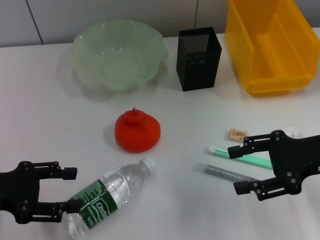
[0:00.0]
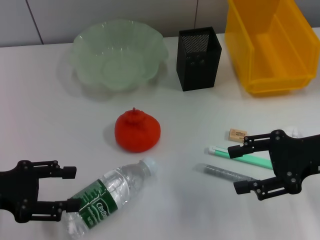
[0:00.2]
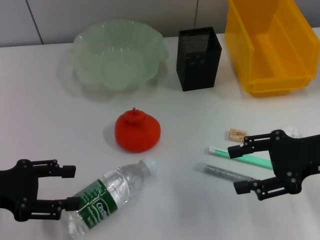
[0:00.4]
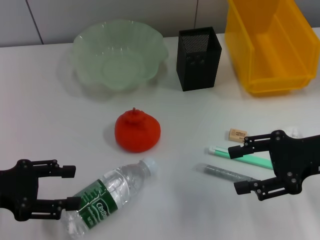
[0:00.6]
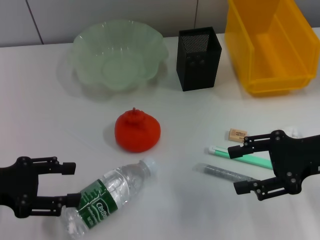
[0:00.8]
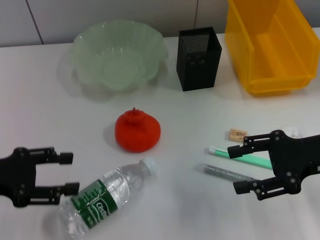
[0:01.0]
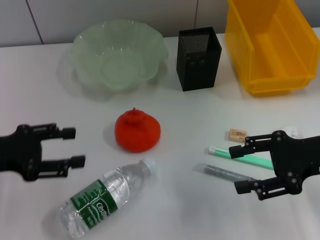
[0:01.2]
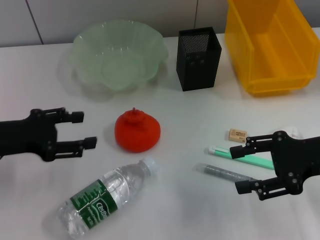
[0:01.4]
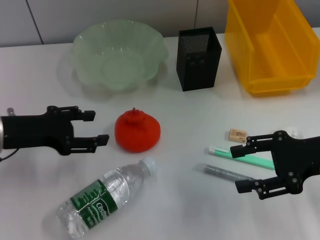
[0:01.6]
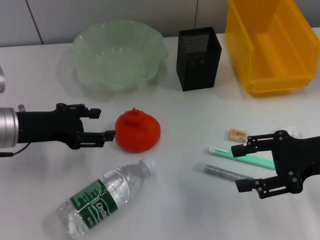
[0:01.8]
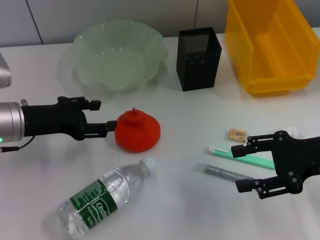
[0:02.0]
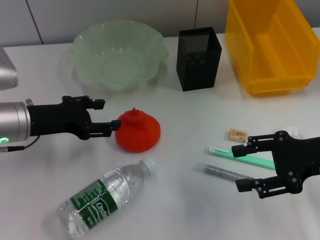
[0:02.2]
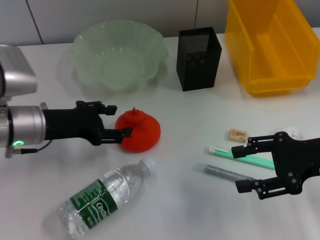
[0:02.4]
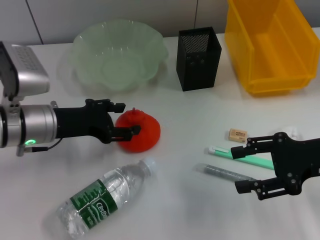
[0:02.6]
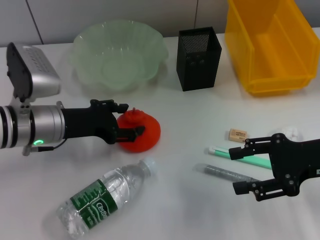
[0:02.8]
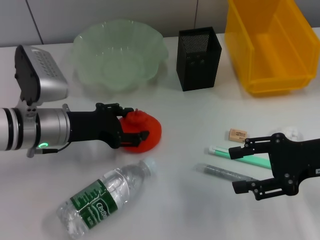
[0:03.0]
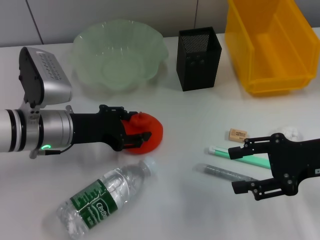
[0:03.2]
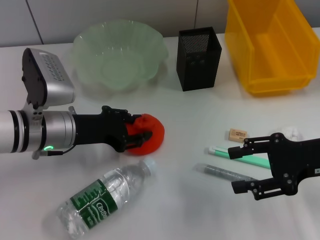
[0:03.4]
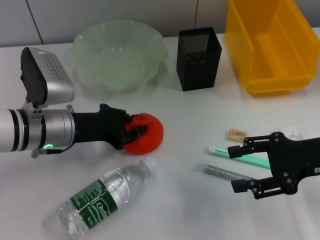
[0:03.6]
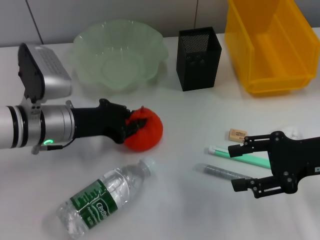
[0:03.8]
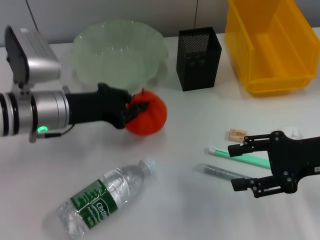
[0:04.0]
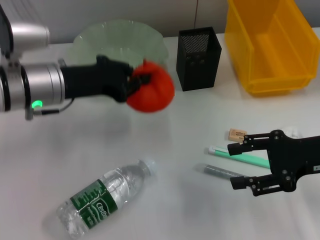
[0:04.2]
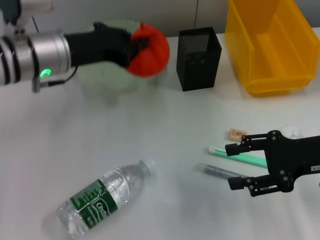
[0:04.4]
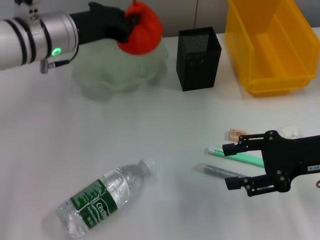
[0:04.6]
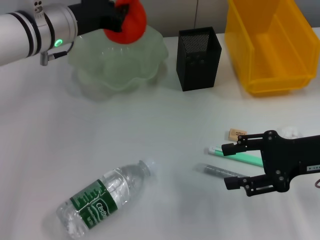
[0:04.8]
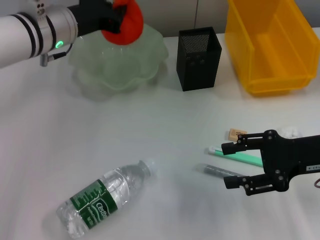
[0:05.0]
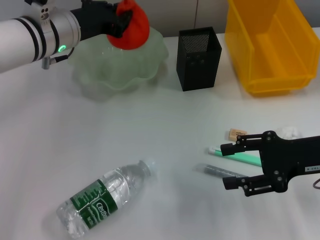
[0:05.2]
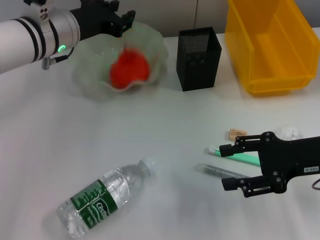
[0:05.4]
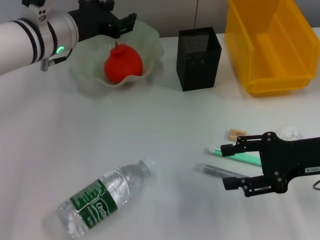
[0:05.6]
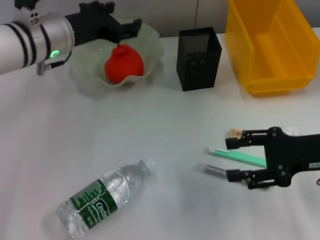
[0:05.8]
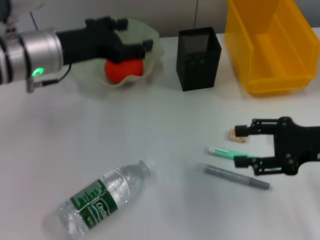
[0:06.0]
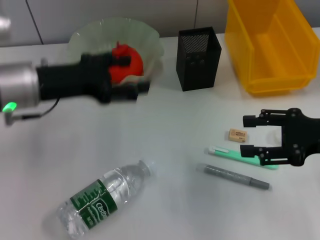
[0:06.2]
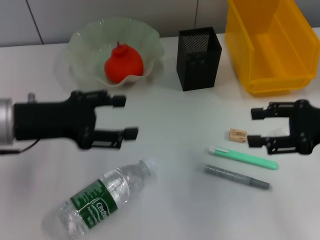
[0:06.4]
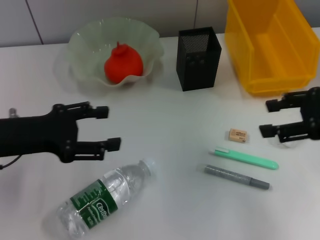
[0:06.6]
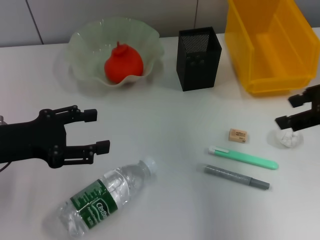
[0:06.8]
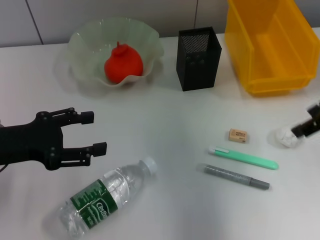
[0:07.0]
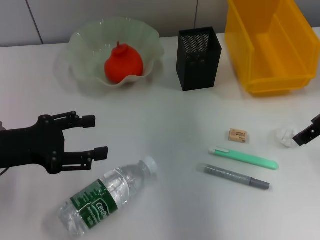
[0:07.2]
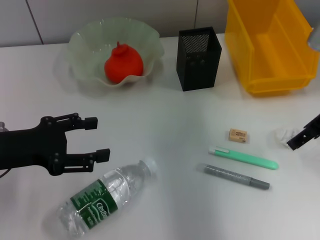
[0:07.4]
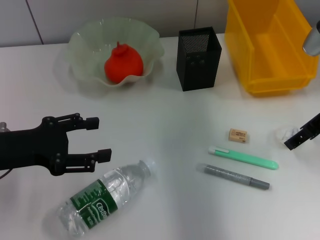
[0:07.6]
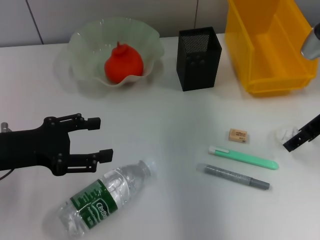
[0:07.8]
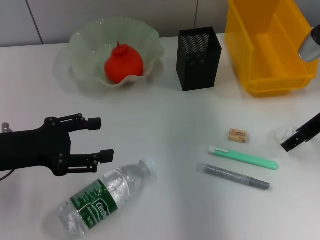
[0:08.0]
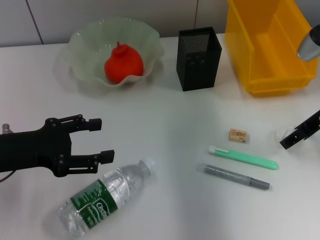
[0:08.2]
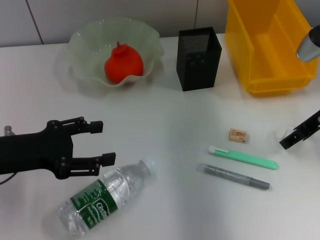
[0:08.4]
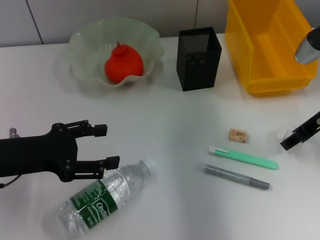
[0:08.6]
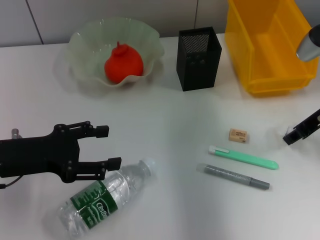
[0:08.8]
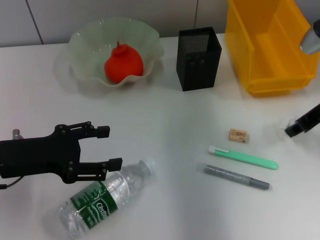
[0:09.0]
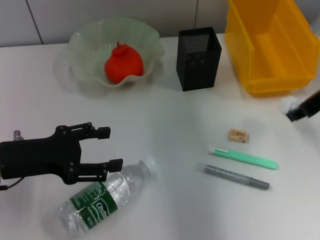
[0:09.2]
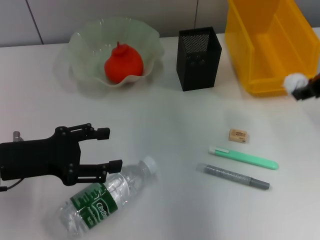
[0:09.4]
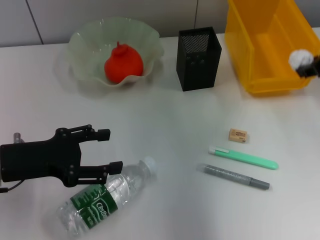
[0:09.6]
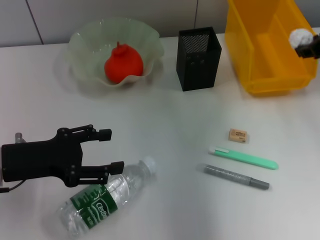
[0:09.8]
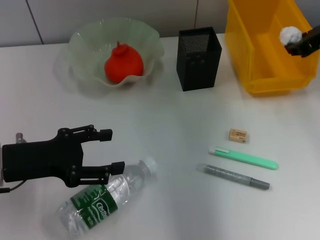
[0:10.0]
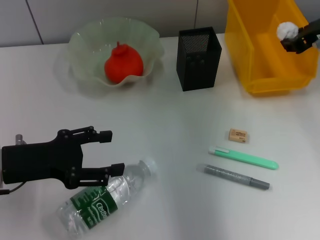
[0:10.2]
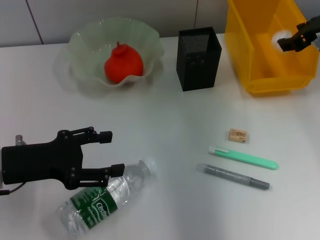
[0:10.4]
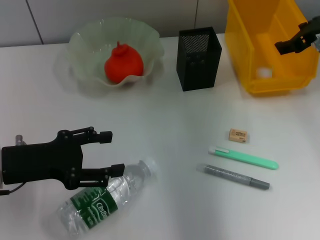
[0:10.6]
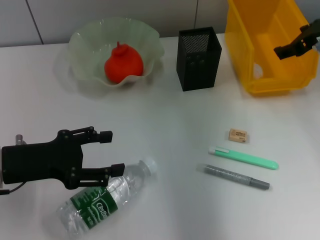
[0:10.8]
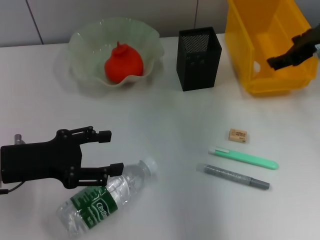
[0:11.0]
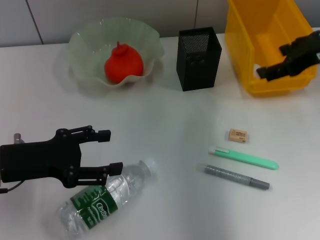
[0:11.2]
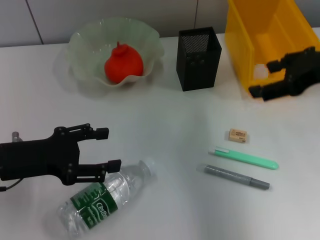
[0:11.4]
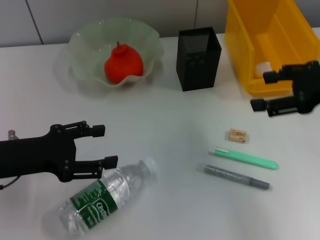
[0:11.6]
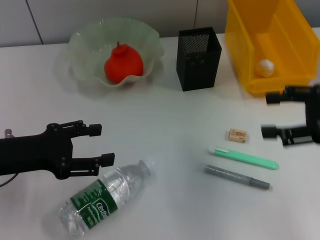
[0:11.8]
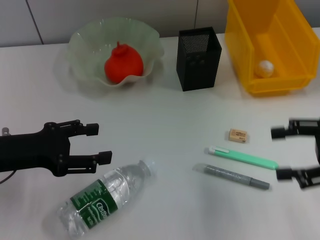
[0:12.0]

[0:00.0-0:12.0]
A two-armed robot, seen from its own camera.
Step, 0.0 to 3.6 s: Grab the orange with the left hand.
Step, 3.8 to 5.4 s: Place the orange into the fruit bowl with the left hand.
Step, 5.6 to 8.6 s: Grab the paper ball with the right hand.
Step, 8.8 to 10.6 s: Place the paper ball into the trash can with the right hand.
0.0 to 1.6 s: The left gripper goes some 5 cm forward.
1.6 to 3.0 s: The left gripper travels to the right by approximately 10 cm.
3.0 to 4.4 s: The left gripper shifts about 10 cm upward, and closes up.
4.4 to 6.0 s: The left gripper opens up.
6.0 to 7.6 s: The left gripper moves backward and to the left, approximately 15 cm, while the right gripper shifts approximately 10 cm forward and upward.
7.6 to 9.0 s: The right gripper closes.
9.0 to 10.4 s: The right gripper travels forward by roughly 5 cm.
10.4 to 12.0 s: The right gripper goes roughly 15 cm backward, and opens.

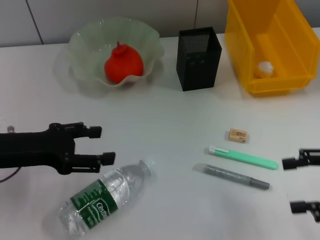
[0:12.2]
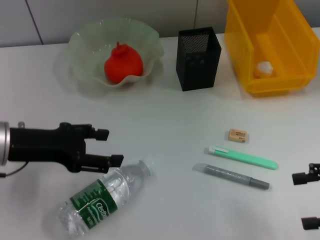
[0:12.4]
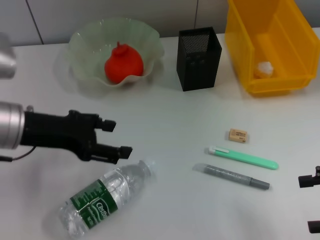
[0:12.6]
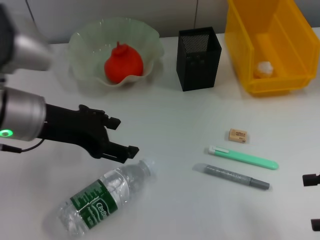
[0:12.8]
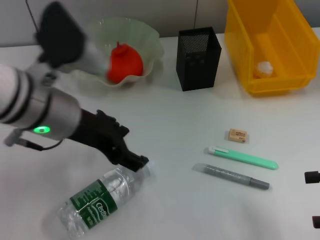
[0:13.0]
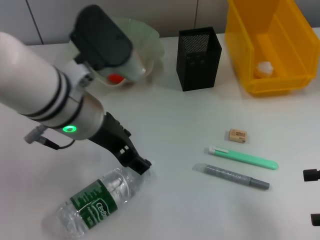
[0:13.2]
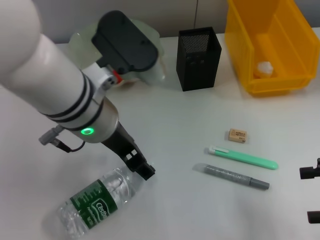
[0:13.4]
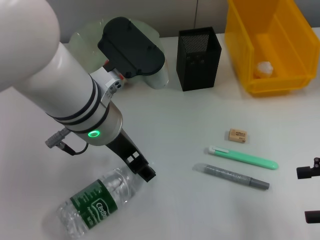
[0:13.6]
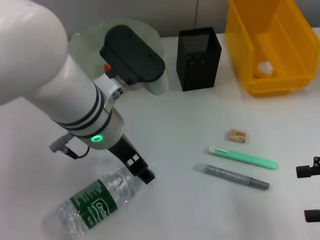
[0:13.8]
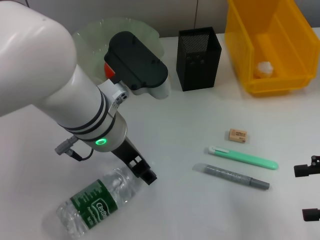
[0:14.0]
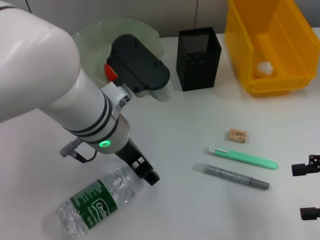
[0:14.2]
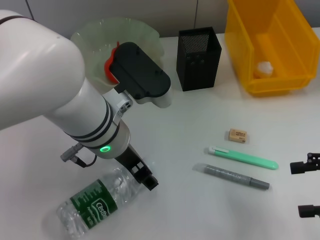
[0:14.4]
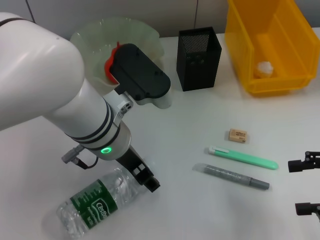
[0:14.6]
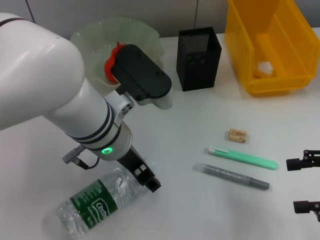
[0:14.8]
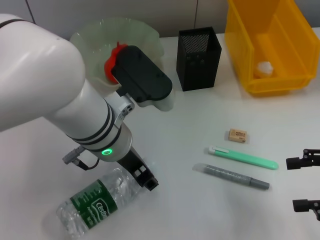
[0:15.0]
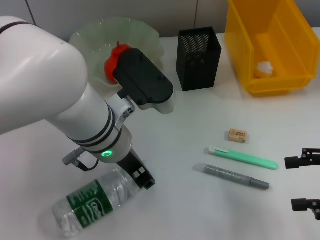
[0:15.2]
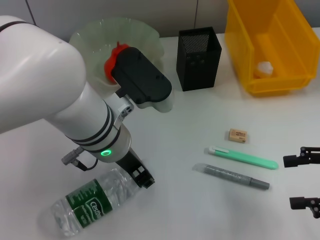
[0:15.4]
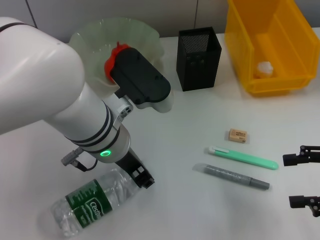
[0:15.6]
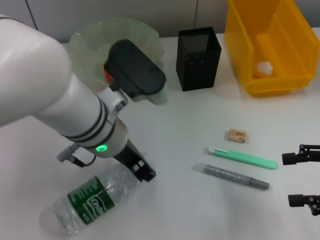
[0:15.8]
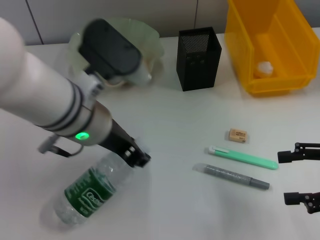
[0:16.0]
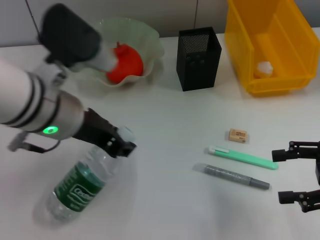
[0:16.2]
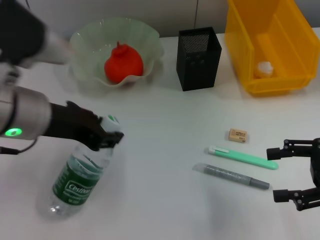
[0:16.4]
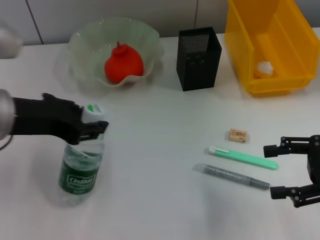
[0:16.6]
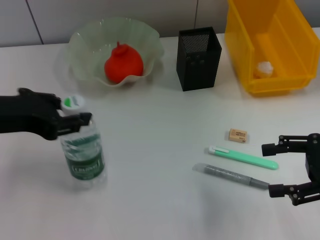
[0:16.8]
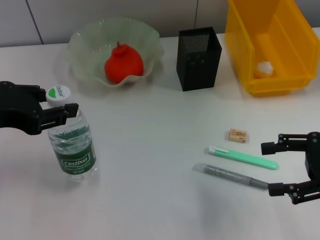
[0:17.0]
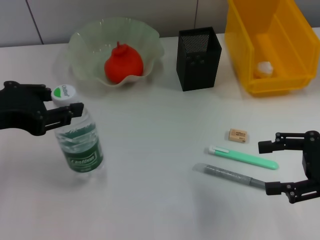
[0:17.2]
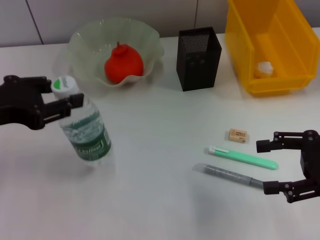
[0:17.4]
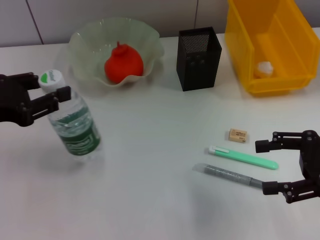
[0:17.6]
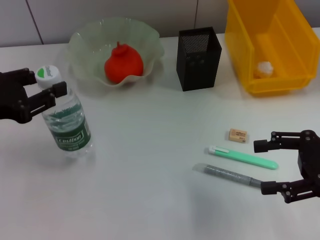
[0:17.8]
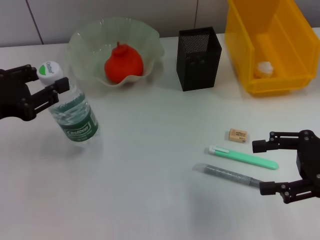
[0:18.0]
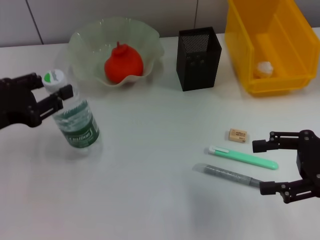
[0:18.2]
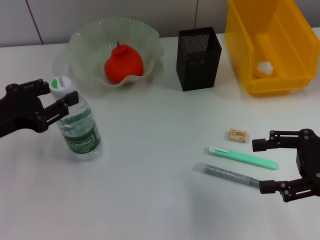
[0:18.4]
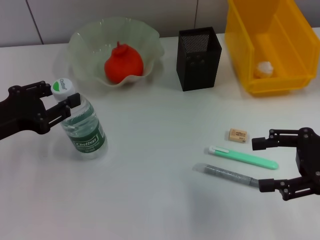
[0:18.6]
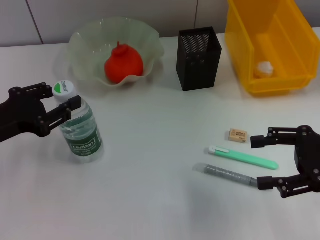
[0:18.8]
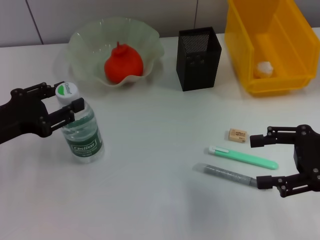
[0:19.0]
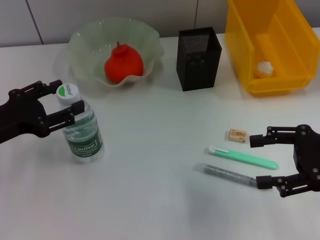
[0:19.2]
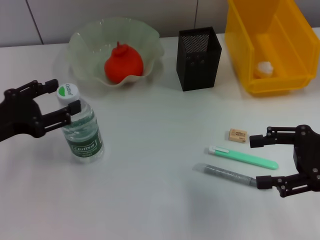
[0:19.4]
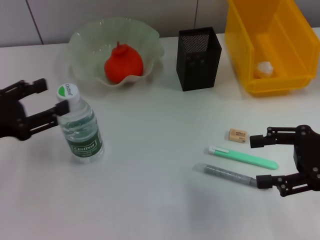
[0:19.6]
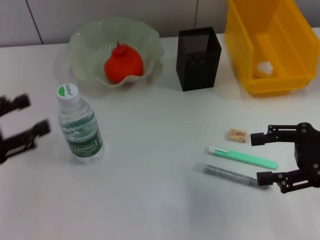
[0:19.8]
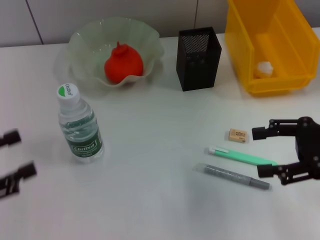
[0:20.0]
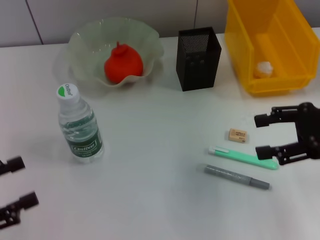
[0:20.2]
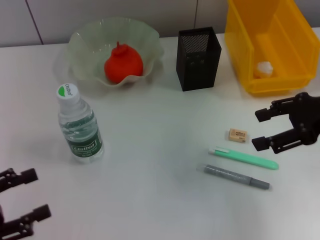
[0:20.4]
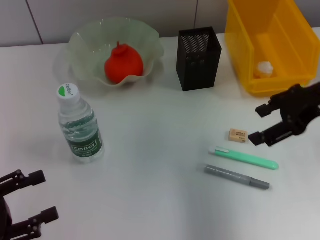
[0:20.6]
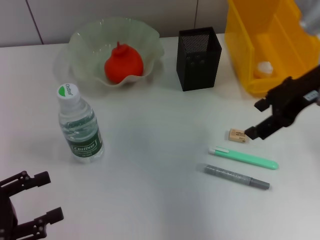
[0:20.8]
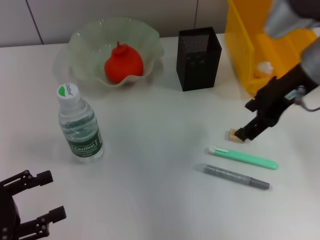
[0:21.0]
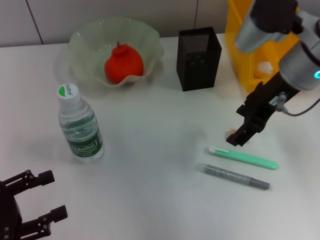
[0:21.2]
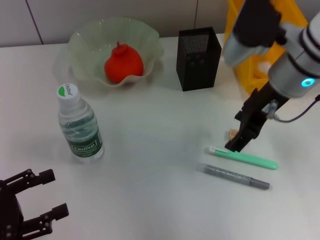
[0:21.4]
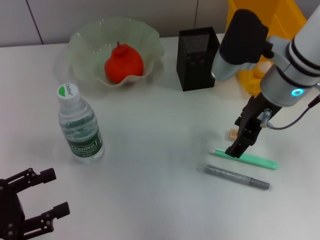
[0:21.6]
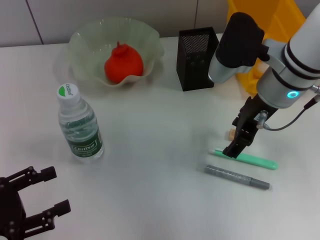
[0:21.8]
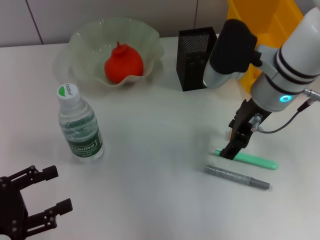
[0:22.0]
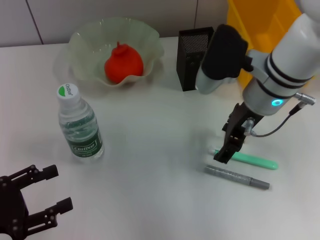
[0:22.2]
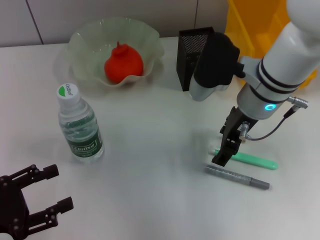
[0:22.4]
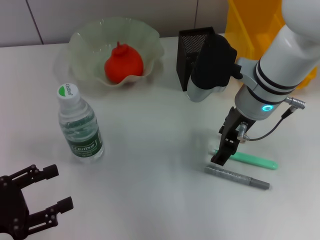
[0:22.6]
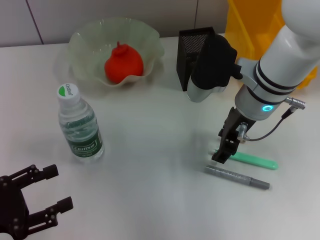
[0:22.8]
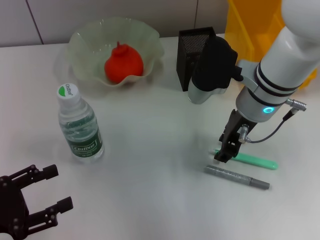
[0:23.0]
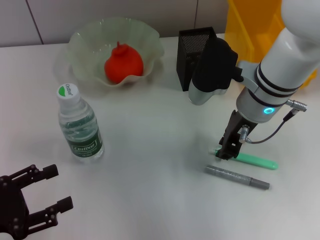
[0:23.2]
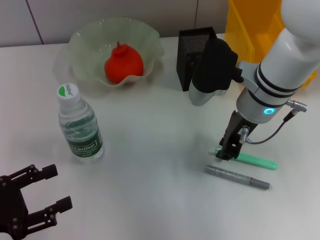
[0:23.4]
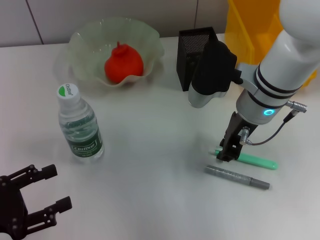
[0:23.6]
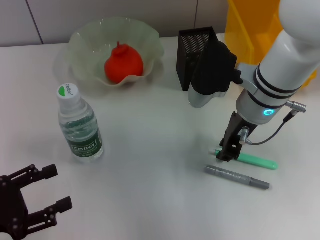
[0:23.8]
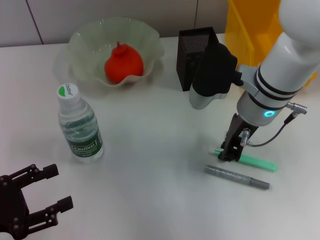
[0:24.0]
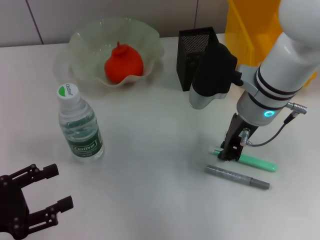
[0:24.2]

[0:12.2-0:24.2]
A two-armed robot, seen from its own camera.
Step, 12.2 to 15.6 s: Grab the water bottle with the left hand.
Step, 15.8 to 19.2 s: Place the water bottle on the table with the left hand.
Step, 19.4 to 24.2 s: Grab the blue utility knife with the right hand.
12.2 to 13.8 s: The left gripper heads to the right, covering approximately 20 cm.
15.2 to 16.6 s: The left gripper heads to the left and upward, covering some 15 cm.
16.6 to 18.2 s: The left gripper shifts approximately 10 cm to the left and downward.
18.2 to 19.8 s: The left gripper changes place by approximately 5 cm, and opens.
19.8 to 21.2 s: The right gripper travels to the left, forward and upward by roughly 20 cm; the left gripper shifts some 10 cm backward and downward.
21.2 to 22.6 s: The right gripper heads downward, covering approximately 5 cm.
22.6 to 24.2 s: The right gripper closes its fingers.
